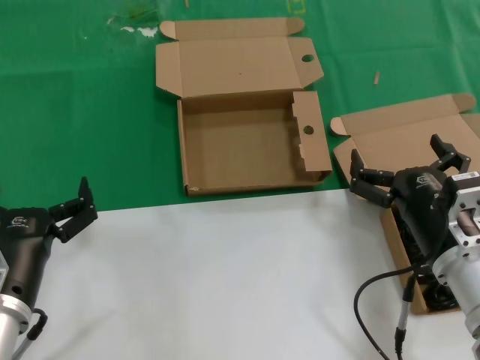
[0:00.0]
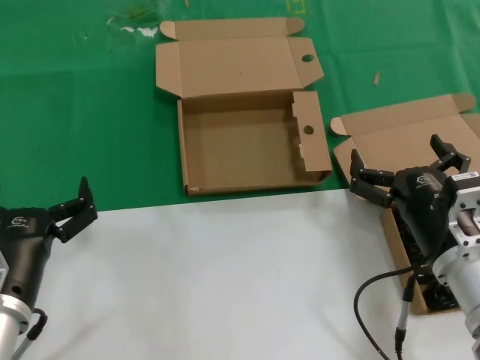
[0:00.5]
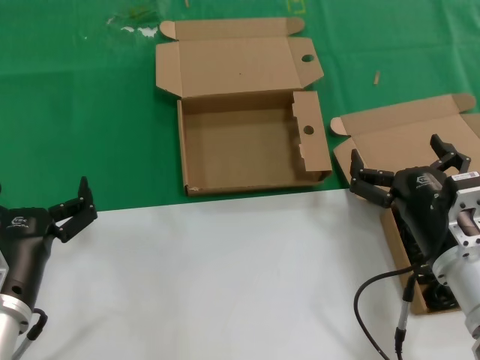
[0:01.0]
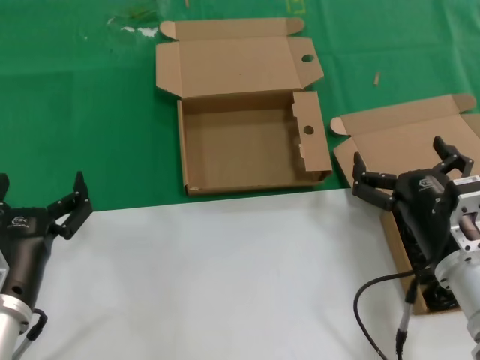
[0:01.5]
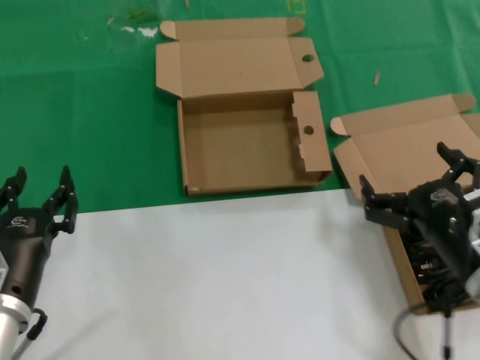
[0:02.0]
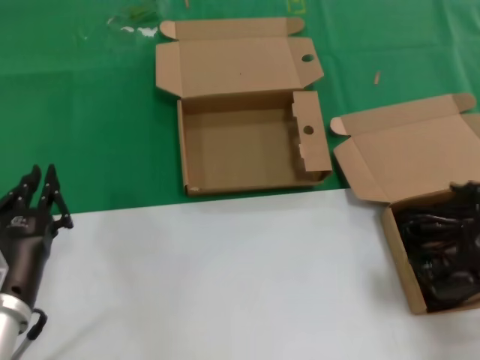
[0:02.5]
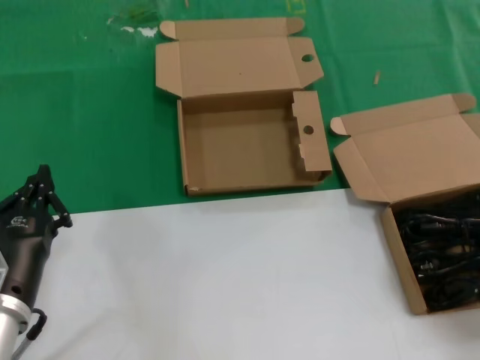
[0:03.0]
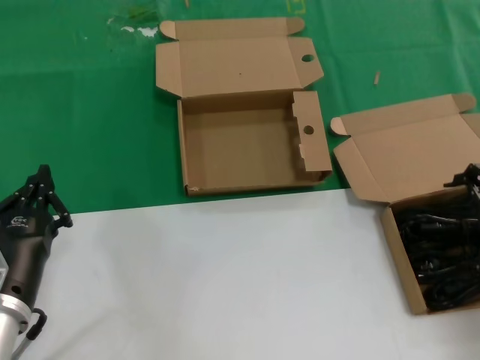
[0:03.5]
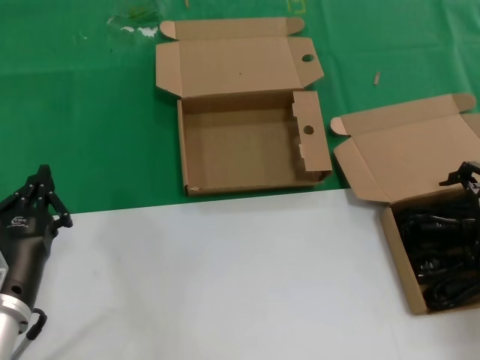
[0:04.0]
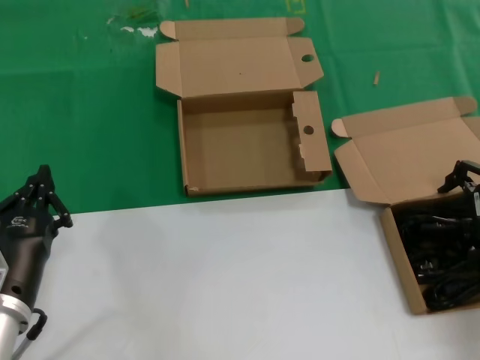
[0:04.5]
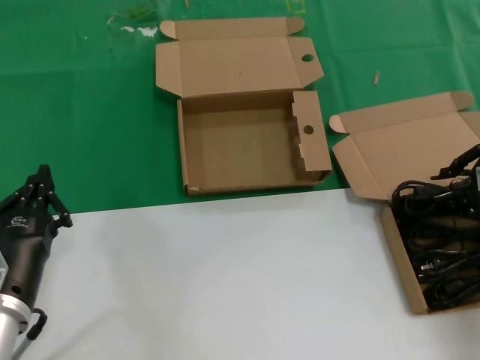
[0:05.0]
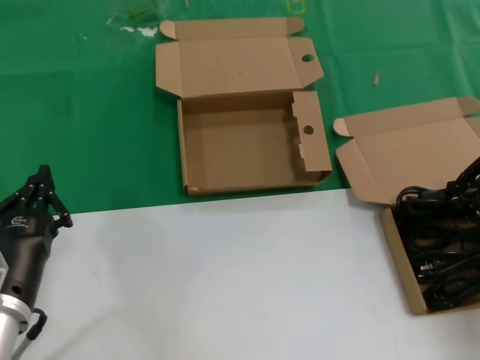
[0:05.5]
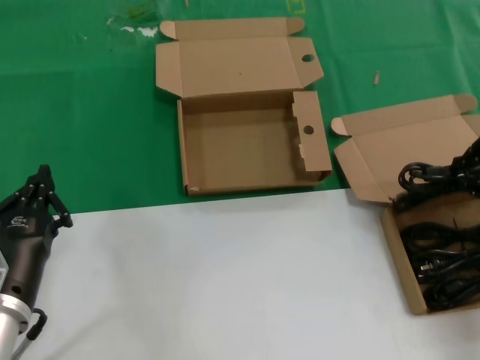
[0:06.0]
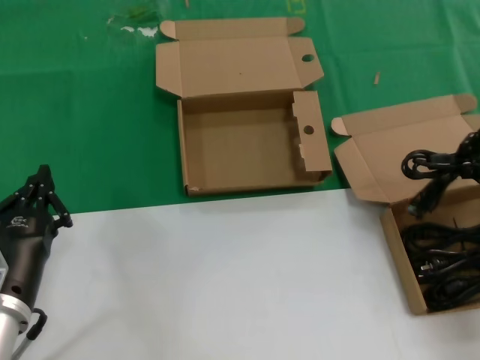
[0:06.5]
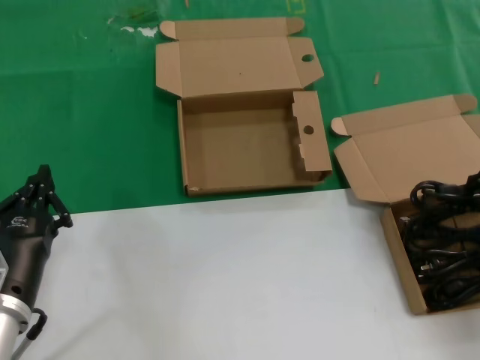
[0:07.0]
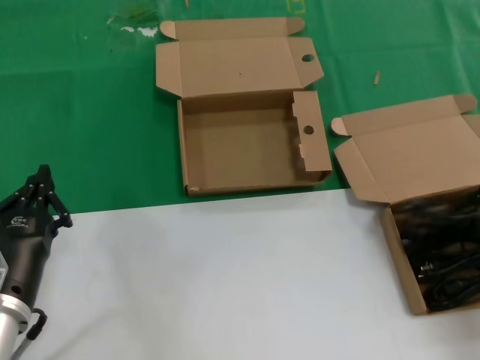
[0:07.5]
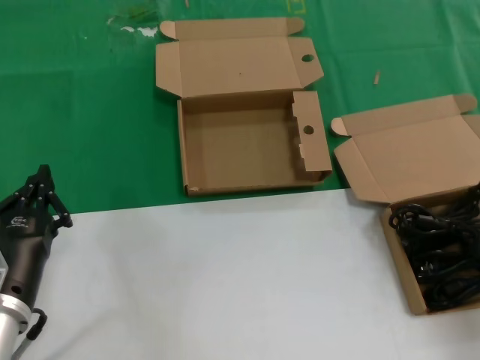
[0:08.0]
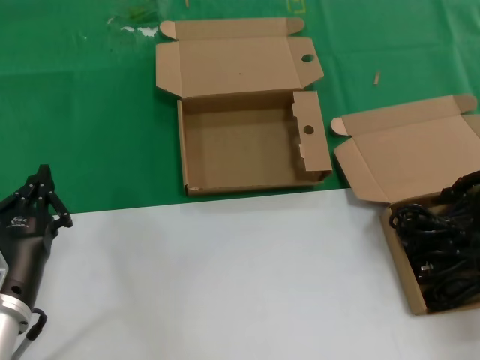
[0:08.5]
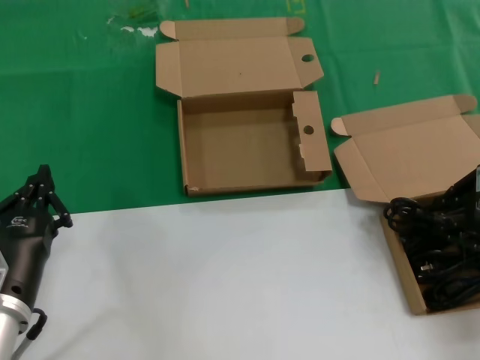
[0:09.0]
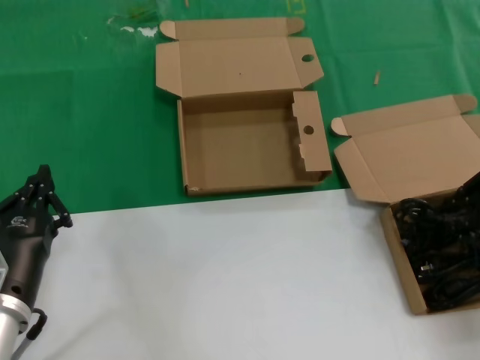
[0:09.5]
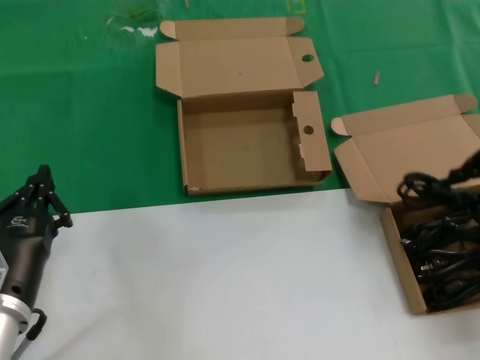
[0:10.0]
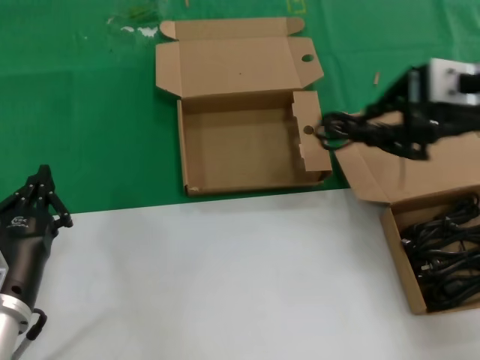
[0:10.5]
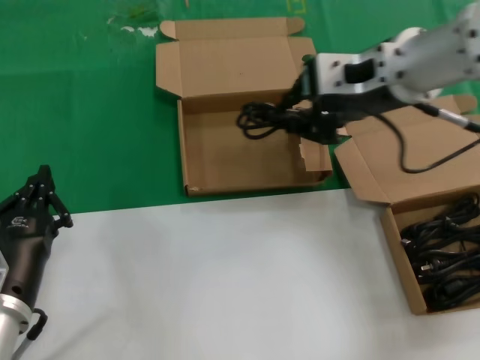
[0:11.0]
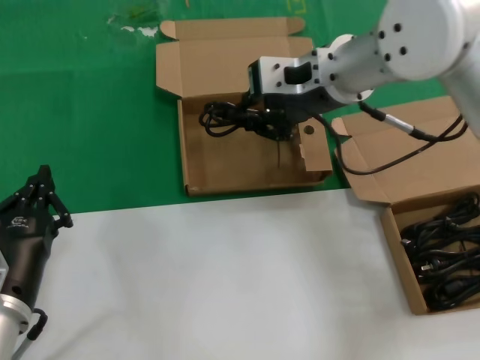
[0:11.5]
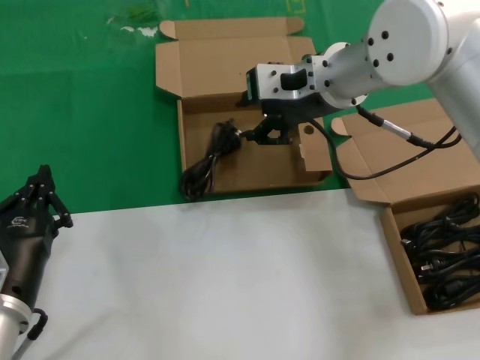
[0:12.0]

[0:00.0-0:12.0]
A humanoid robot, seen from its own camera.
Task of the whole recording: take the parts from the box containing them and put them into an empty box.
Step, 0:00.0 to 0:09.0: Grasp the data cable.
Step, 0:09.5 to 0:11.5: Place the data cable in the another box.
0:00.0 to 0:02.0: There are only small adjustments of the hands.
0:02.0 to 0:04.0: The right hand moves to the right, upward and forward, some 20 cm.
0:04.0 to 0:06.0: The right hand heads upward, covering roughly 10 cm.
0:06.0 to 0:10.0: The hands move only a little.
0:10.0 to 0:12.0: The right hand travels to the left and forward by approximately 30 cm.

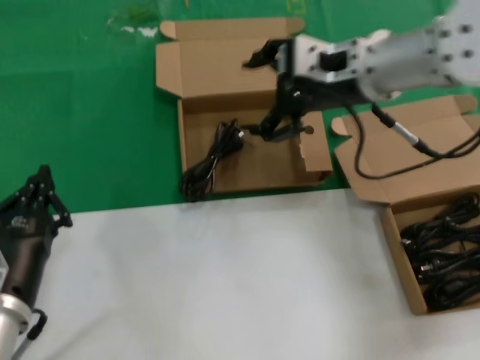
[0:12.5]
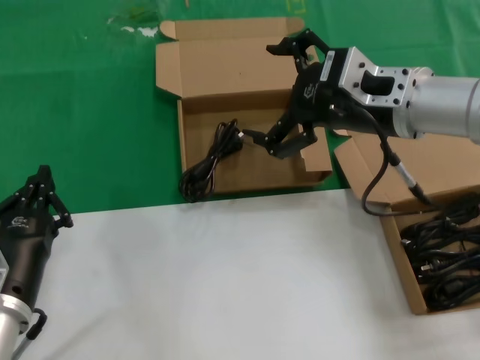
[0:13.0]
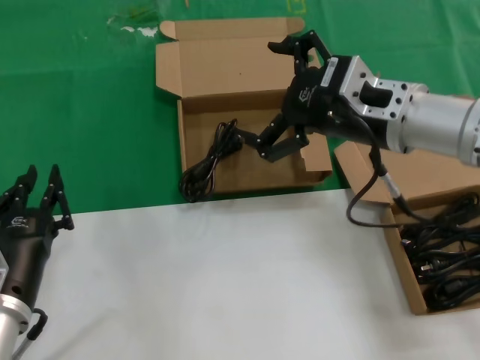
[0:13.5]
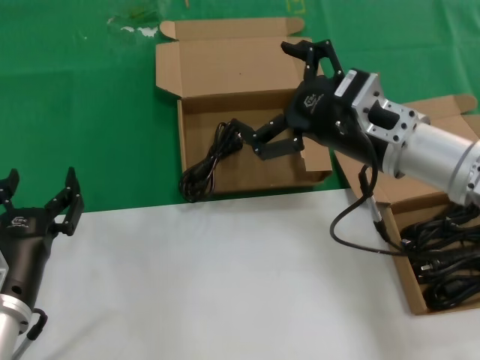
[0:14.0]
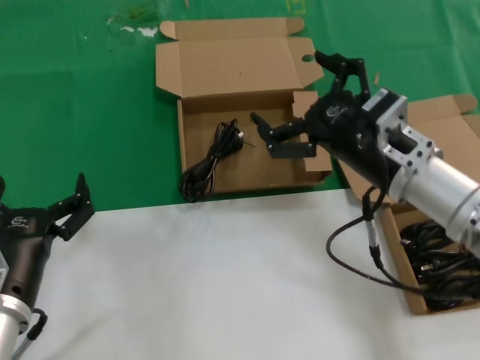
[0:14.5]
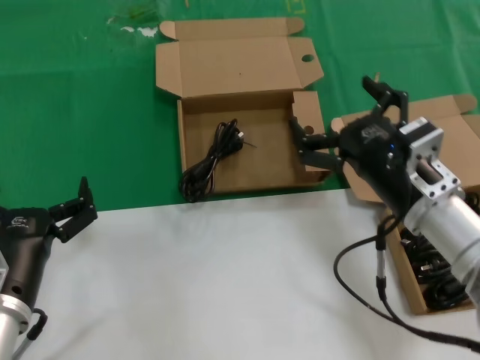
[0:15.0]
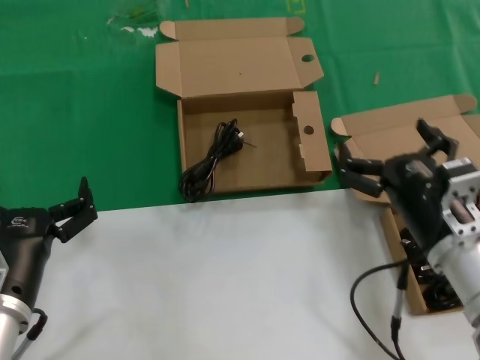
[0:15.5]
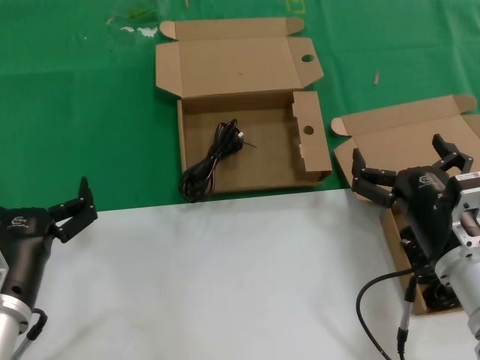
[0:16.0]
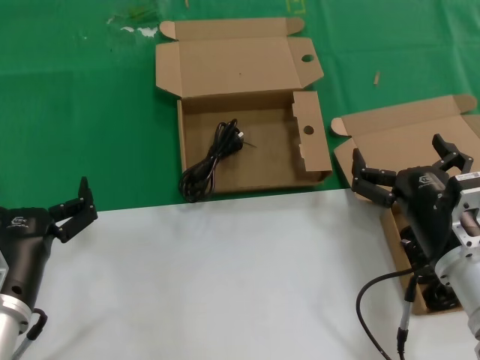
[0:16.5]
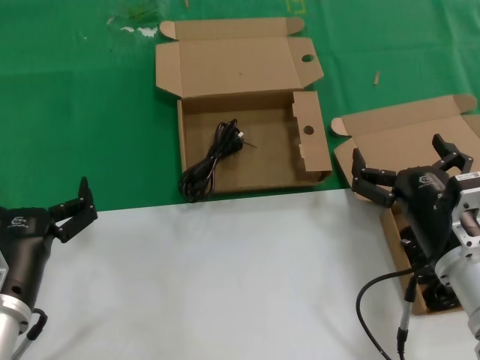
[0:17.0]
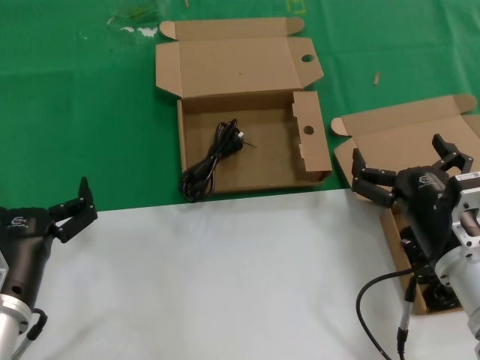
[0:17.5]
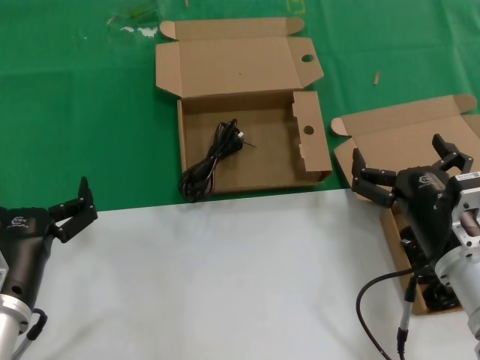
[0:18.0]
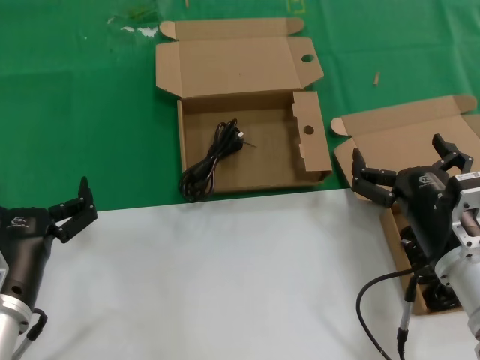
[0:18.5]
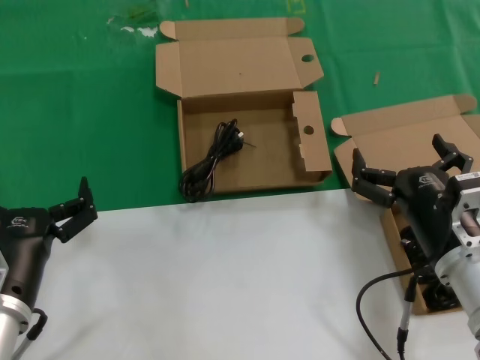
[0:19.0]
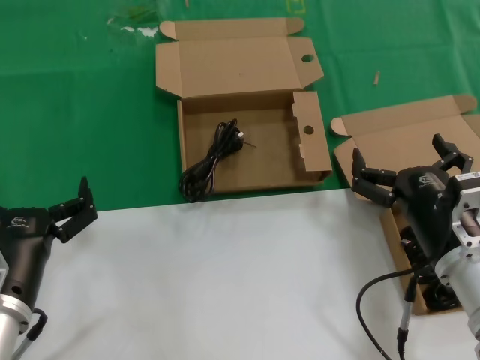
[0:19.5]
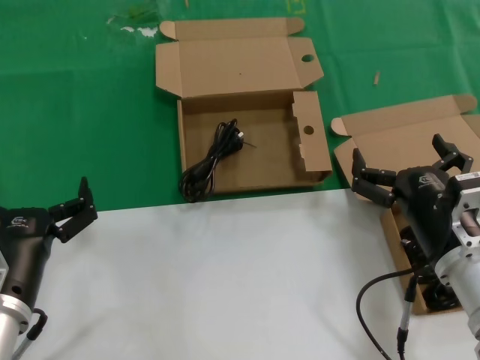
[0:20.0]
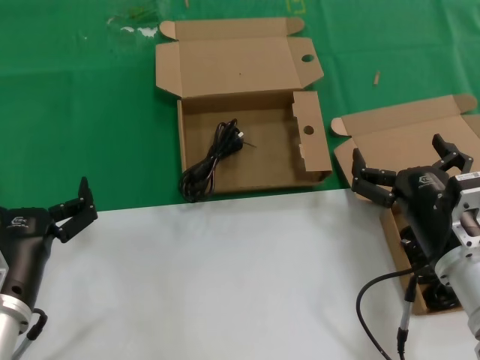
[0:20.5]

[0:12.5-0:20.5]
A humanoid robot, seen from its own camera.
Task of the whole recording: take the parts from the box containing them and put them into an empty box.
0:12.5 to 0:14.5: The right hand goes about 15 cm downward and backward.
0:14.5 to 0:16.5: The right hand heads downward and backward, covering approximately 10 cm.
0:16.5 to 0:20.5: Both hands stay put.

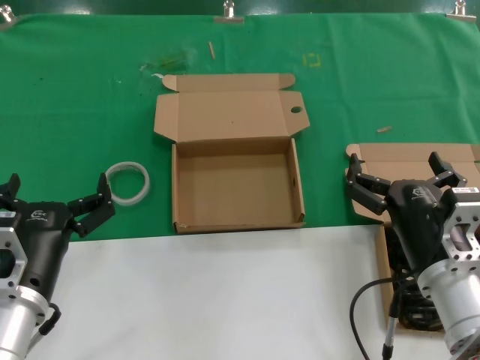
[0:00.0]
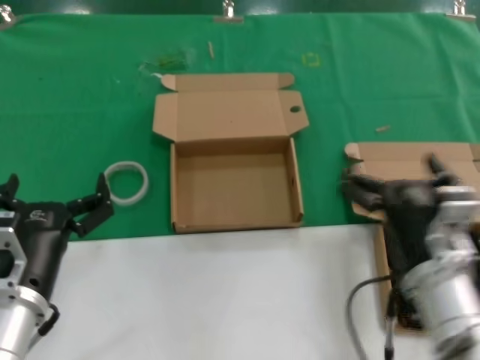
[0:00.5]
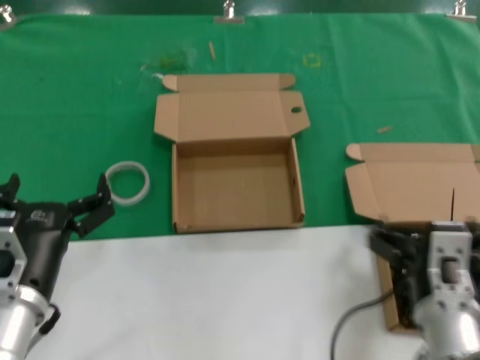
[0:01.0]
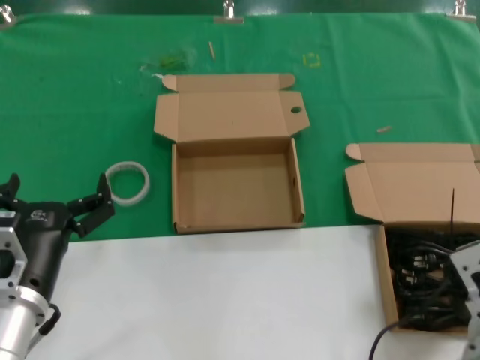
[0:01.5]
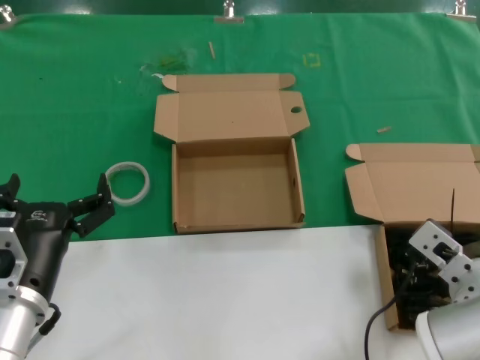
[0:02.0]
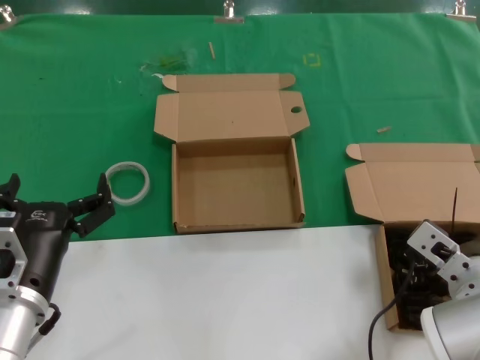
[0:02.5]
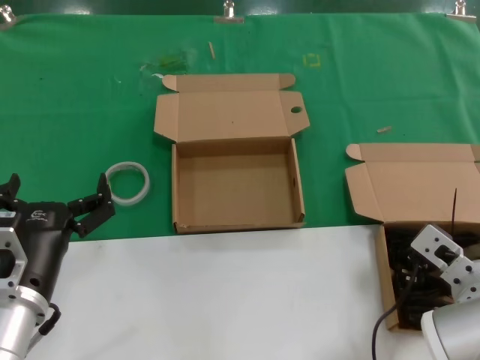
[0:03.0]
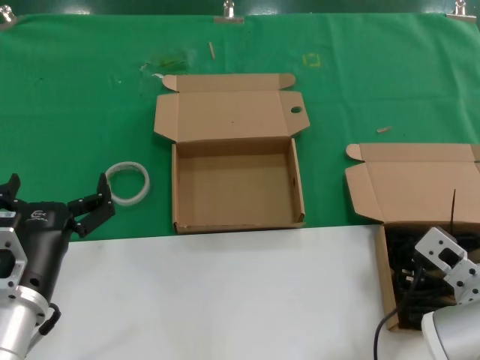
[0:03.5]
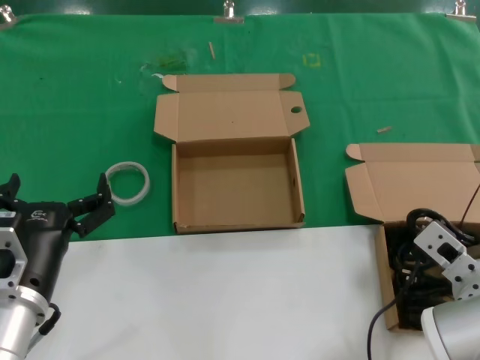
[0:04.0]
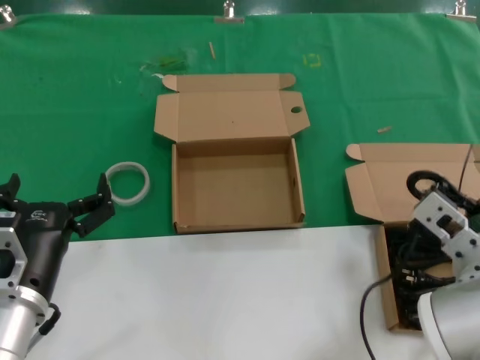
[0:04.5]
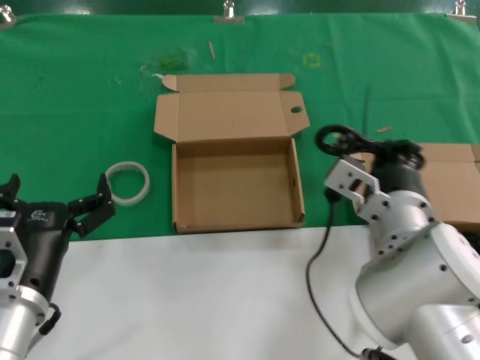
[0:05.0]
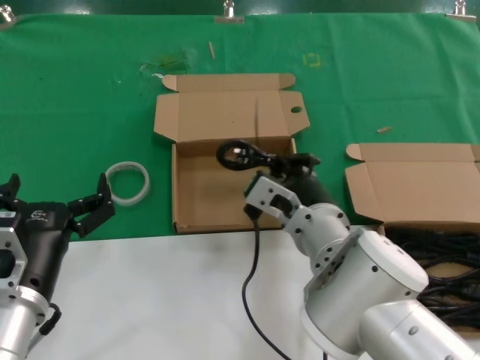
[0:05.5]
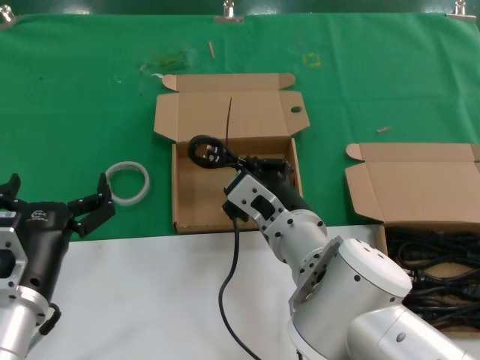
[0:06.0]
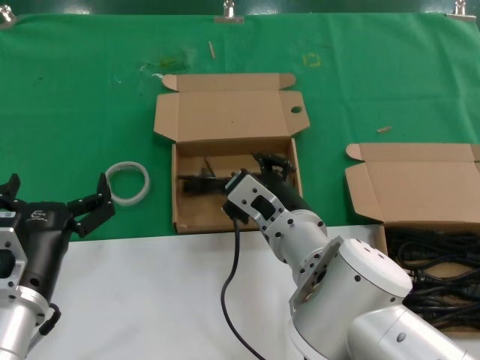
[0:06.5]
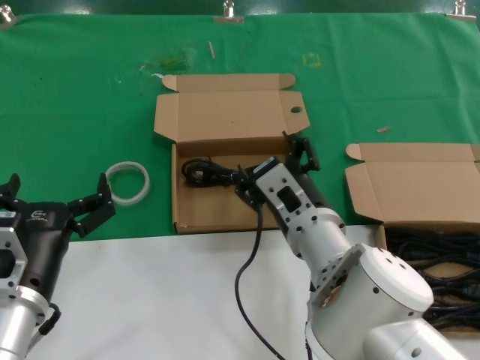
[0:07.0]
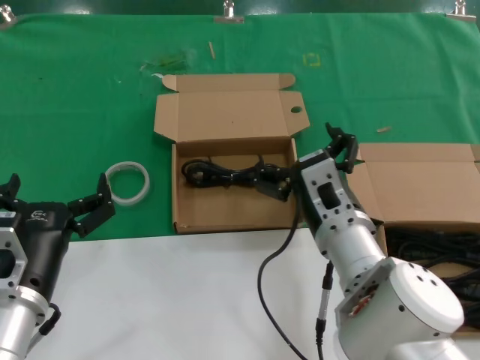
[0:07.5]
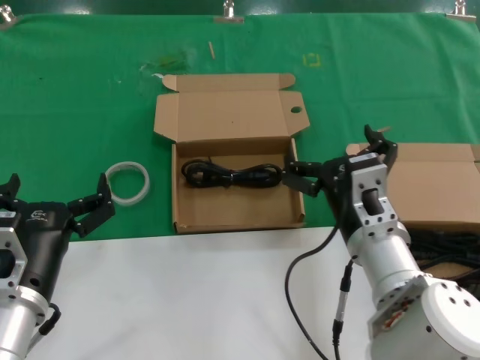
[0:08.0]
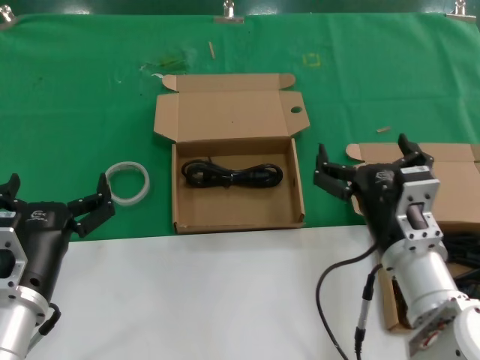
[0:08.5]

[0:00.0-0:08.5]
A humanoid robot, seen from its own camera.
Task of the whole recording: take the parts from the box containing them and put them into an empty box.
Step, 0:00.0 to 0:04.0: Grasp the data cable.
Step, 0:04.5 to 0:06.5: Place the data cable in the another box.
0:02.0 to 0:04.0: The hands move only a little.
0:04.0 to 0:06.5: The right hand travels to the left by some 20 cm.
0:06.5 to 0:08.5: The right hand goes about 10 cm to the right.
